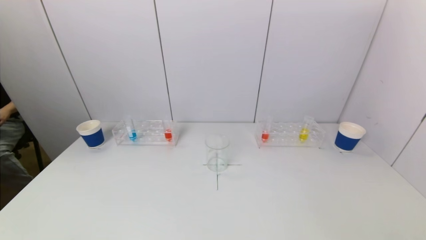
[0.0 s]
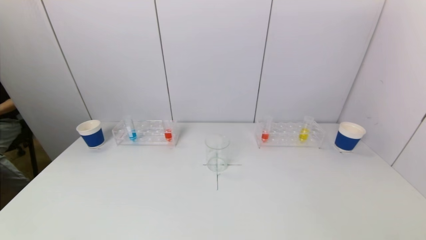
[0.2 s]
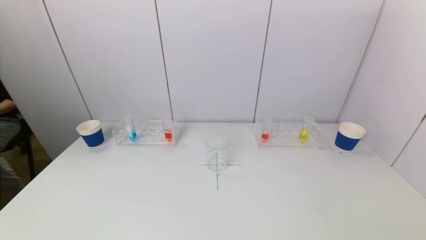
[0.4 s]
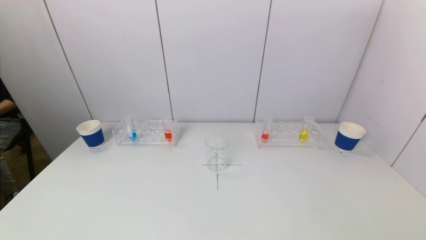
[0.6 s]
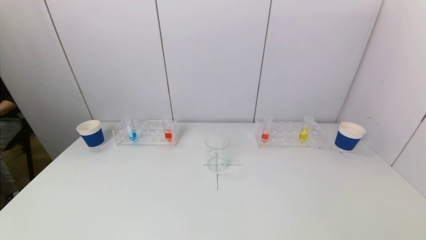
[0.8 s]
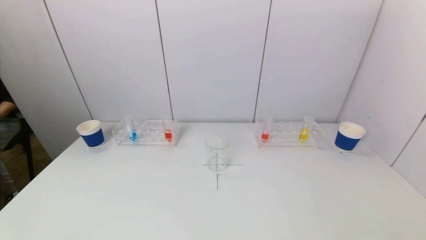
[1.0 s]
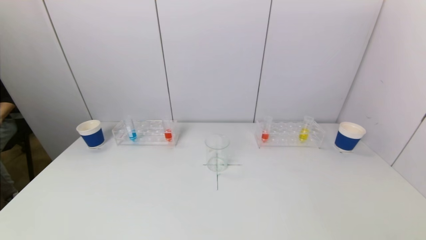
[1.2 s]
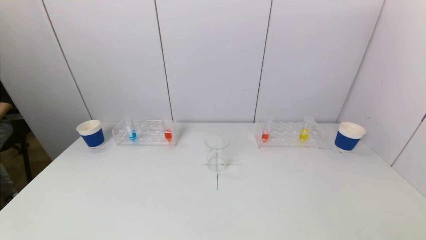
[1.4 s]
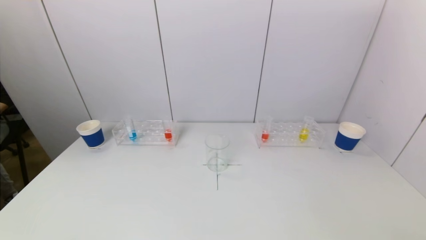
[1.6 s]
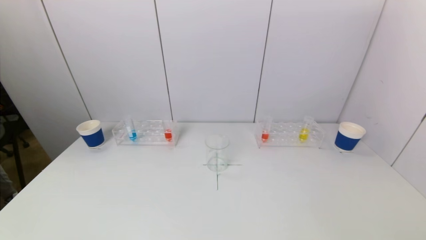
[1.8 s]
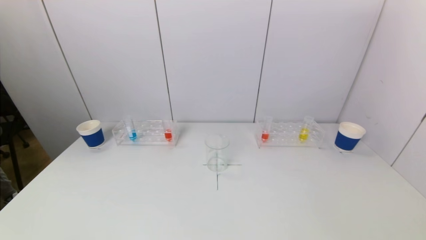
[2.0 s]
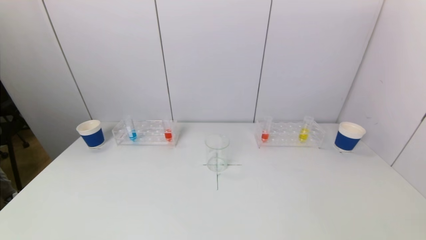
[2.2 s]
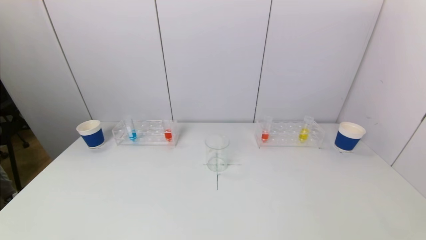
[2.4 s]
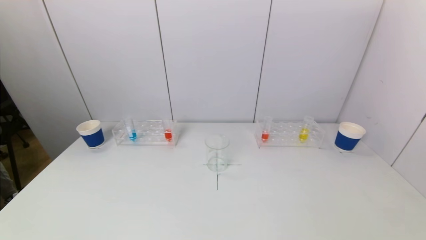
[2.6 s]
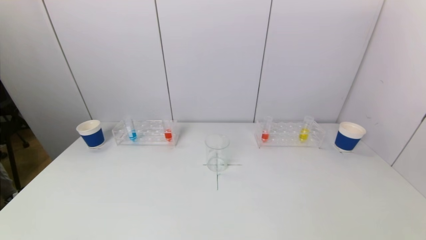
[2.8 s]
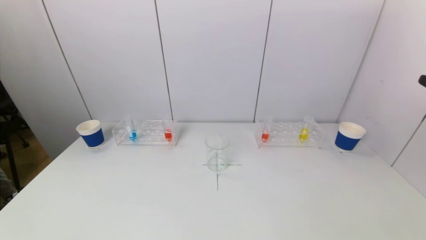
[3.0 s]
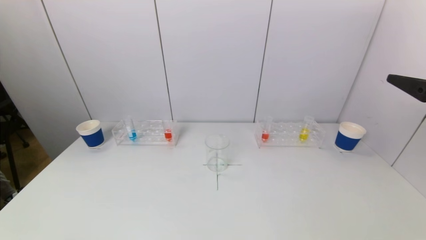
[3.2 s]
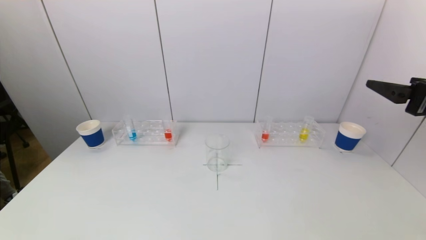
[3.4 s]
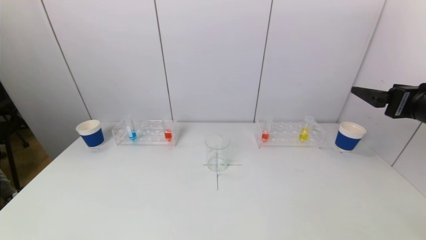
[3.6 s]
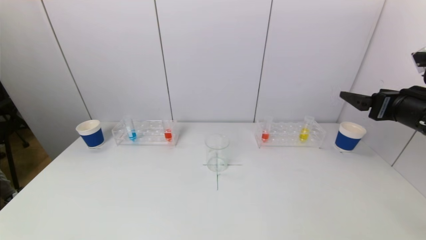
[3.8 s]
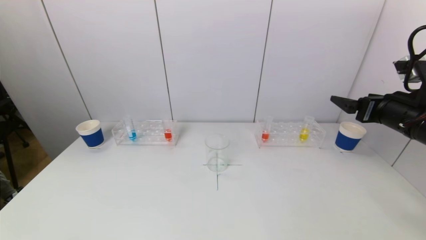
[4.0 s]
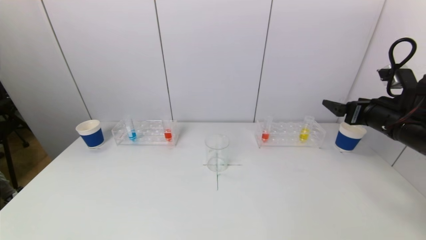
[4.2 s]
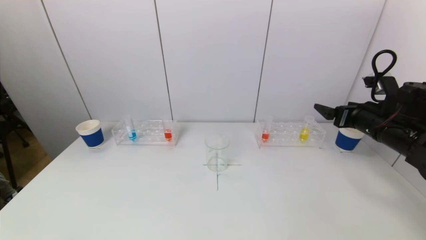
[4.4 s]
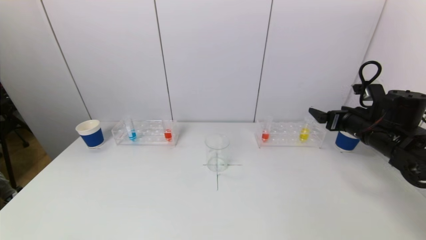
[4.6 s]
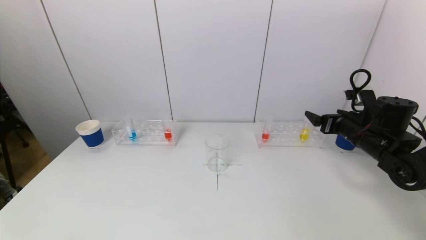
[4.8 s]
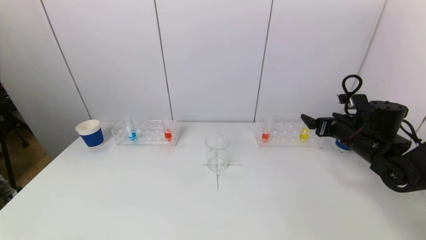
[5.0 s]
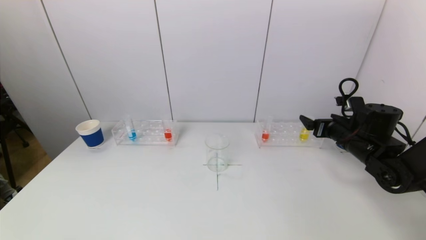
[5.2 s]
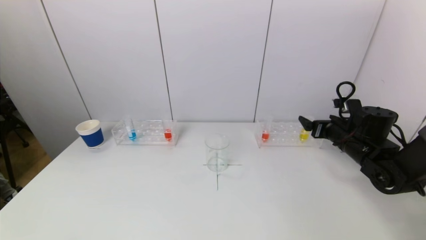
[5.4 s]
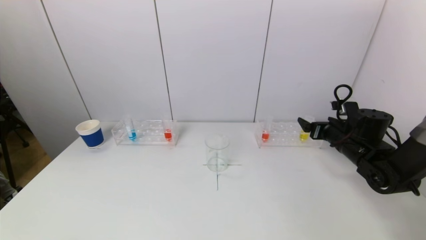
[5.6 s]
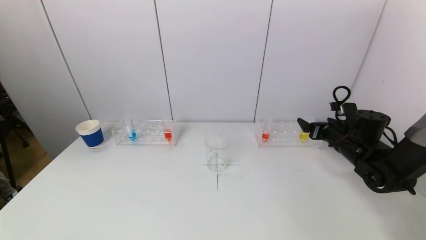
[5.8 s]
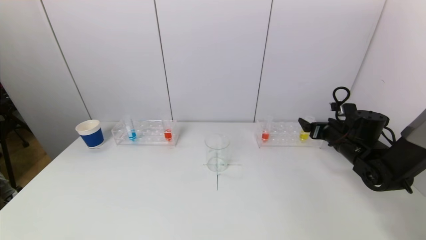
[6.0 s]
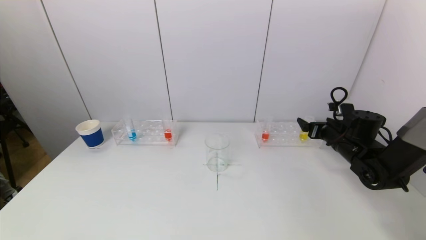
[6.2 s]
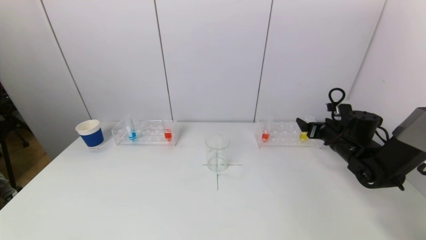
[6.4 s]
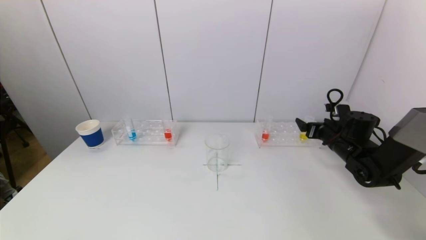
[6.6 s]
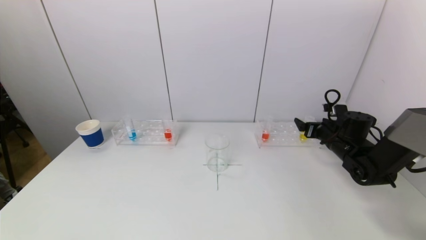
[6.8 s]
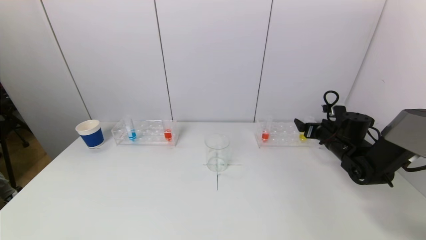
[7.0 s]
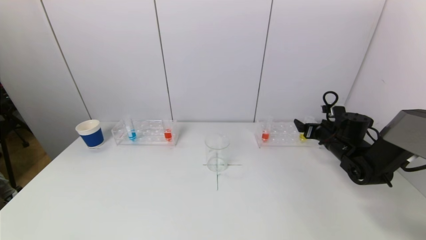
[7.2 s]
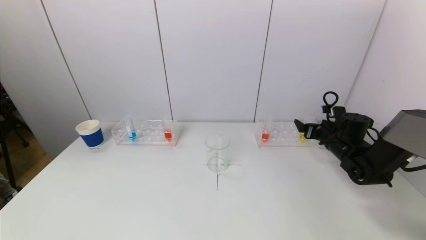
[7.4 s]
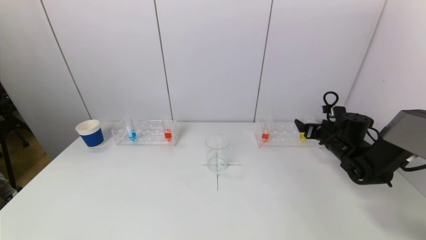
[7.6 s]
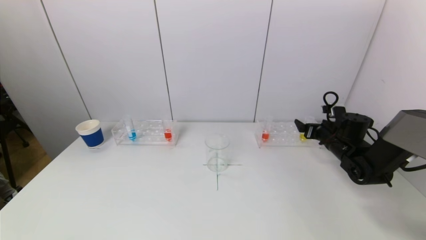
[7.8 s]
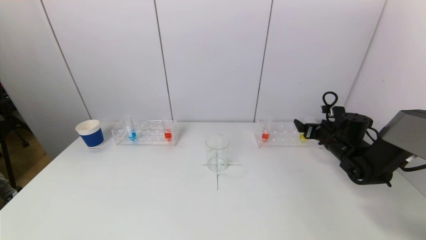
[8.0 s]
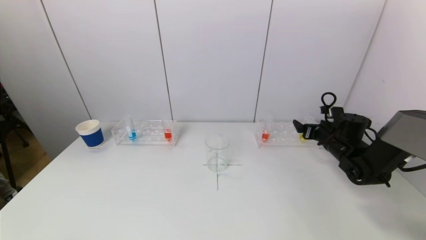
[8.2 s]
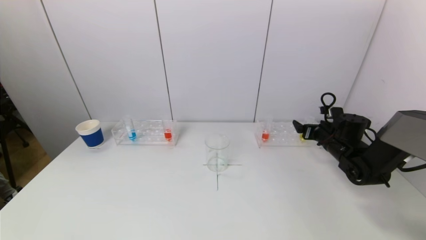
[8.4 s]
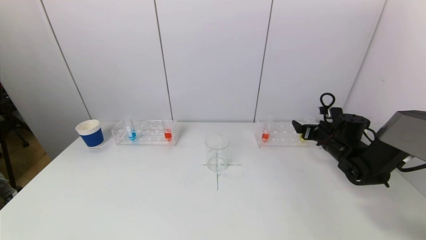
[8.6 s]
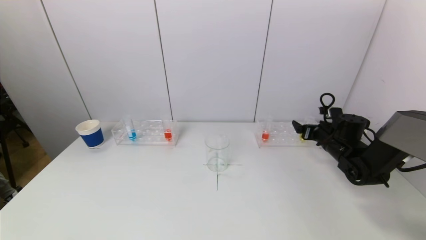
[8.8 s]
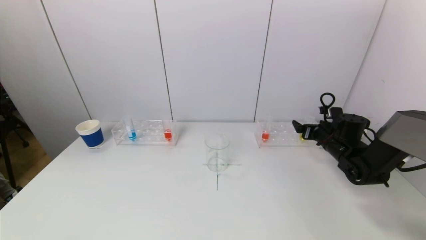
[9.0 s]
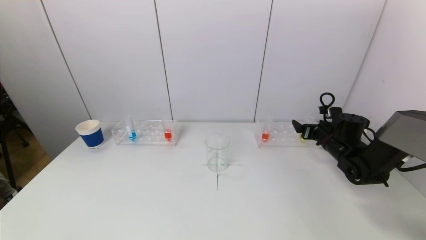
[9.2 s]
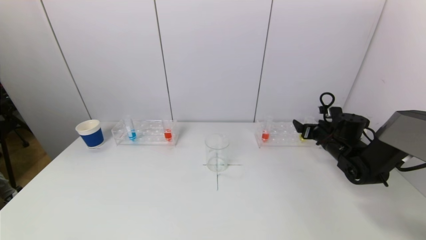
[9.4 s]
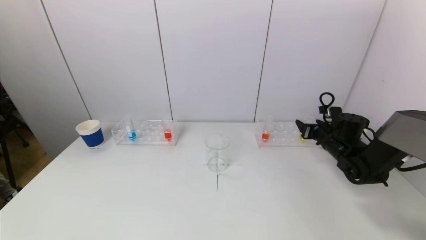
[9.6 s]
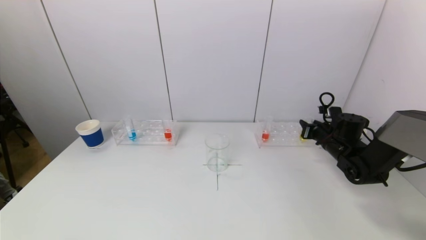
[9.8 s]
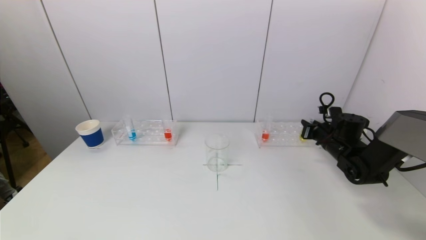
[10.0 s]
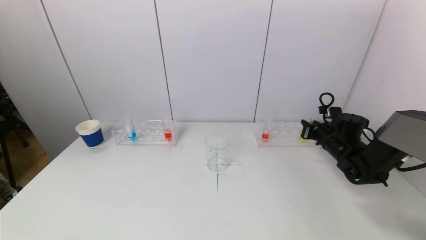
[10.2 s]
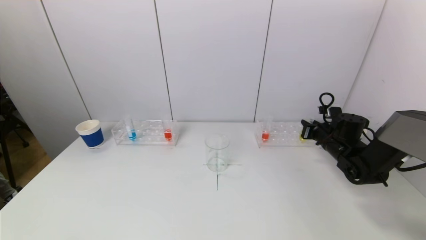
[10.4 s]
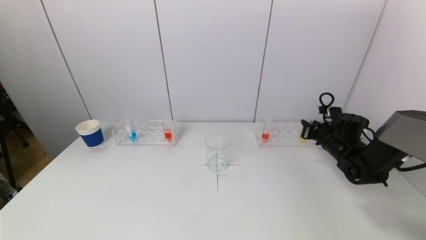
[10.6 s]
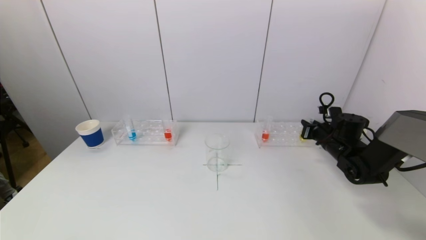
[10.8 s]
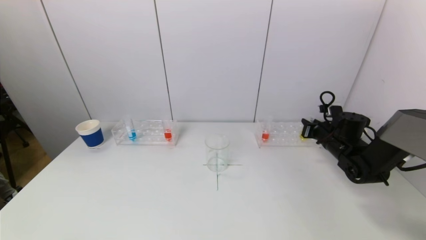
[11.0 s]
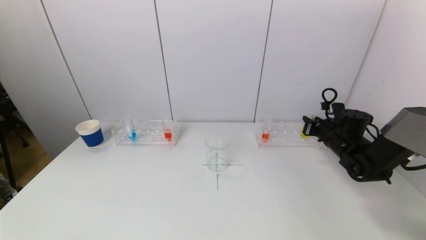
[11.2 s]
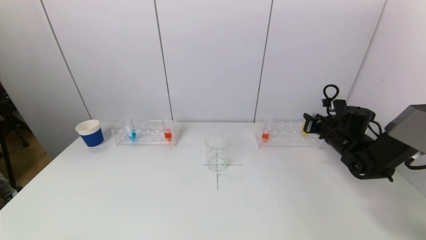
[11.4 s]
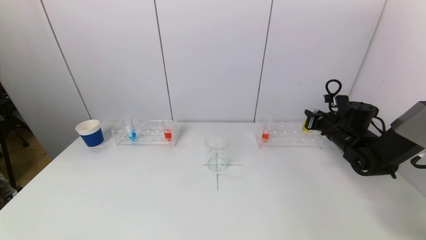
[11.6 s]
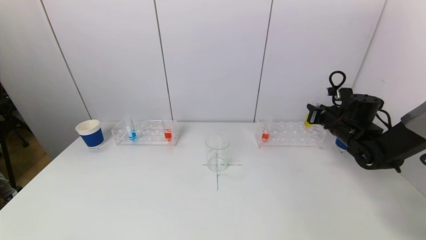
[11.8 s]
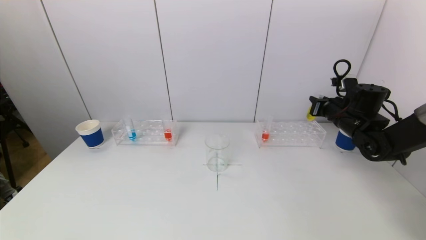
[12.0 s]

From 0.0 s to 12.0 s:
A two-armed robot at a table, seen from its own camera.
Task of the whole recording: pick up a test tube with pigment on left test tube rack and a test tube with pigment on right test tube rack by grippers and pour them into the beaker.
Step, from 0.0 s to 10.4 s: Grasp the yellow reagent with the right gripper.
From 0.0 s to 1.6 s: The grippers move only a little.
From 3.0 s to 4.4 s: The right gripper is displaced forward and downward by some 20 cm.
From 4.4 s to 6.0 s: The right gripper shifts roughly 10 cm downward and forward.
From 6.0 s to 7.6 s: There are only small adjustments of the grippers.
From 7.6 s to 9.0 s: The two grippers keep their place.
From 10.4 s to 12.0 s: The right gripper moves upward, roughly 10 cm.

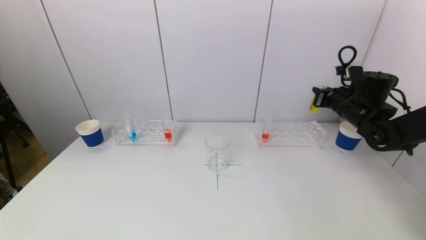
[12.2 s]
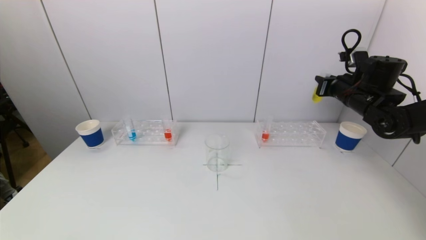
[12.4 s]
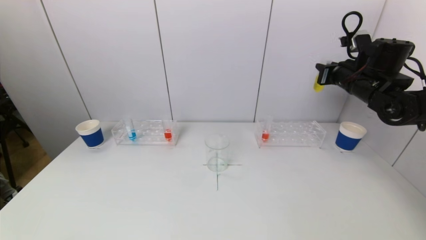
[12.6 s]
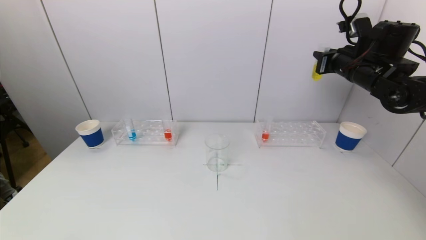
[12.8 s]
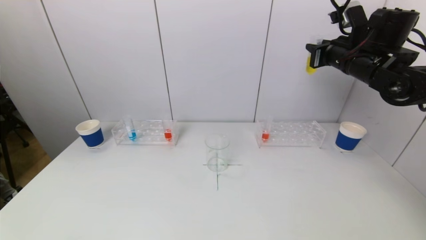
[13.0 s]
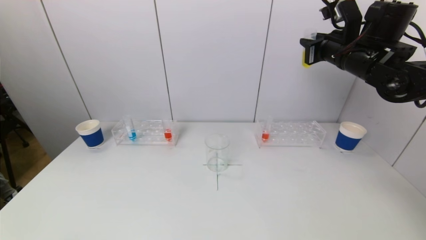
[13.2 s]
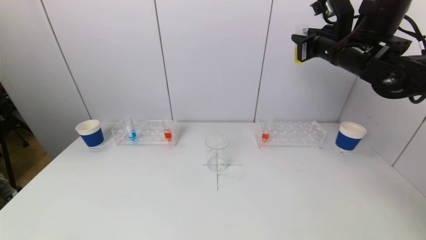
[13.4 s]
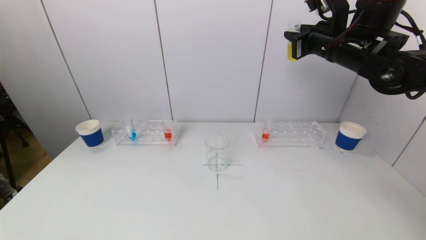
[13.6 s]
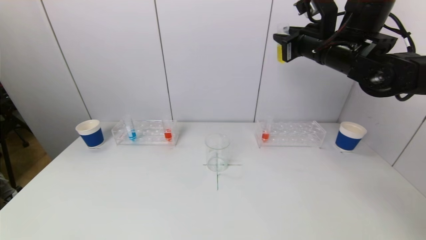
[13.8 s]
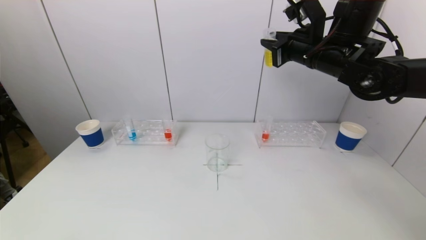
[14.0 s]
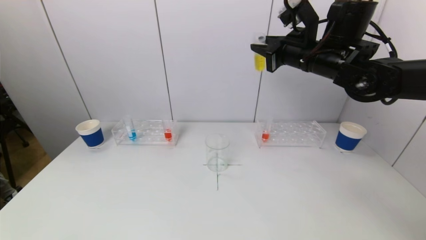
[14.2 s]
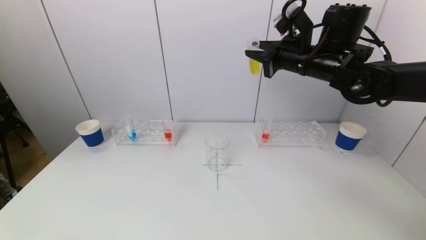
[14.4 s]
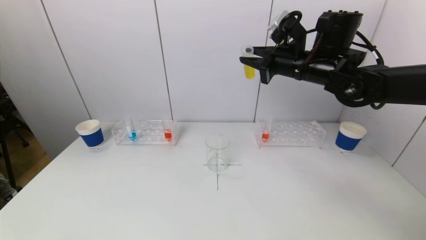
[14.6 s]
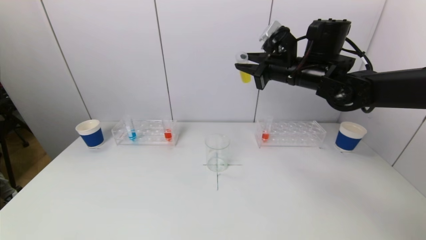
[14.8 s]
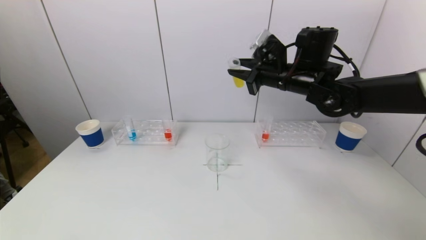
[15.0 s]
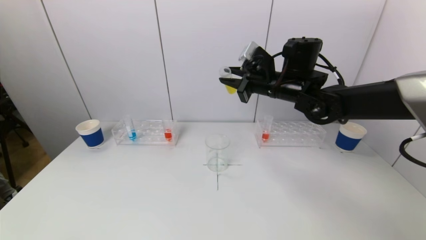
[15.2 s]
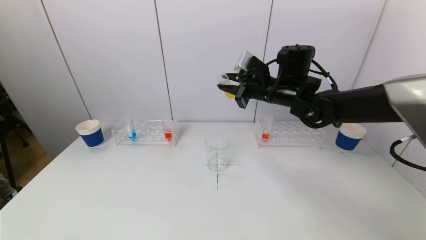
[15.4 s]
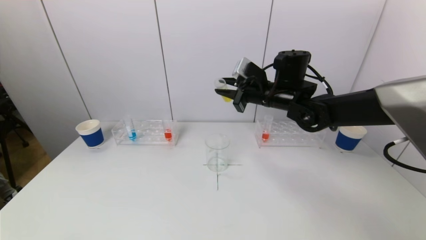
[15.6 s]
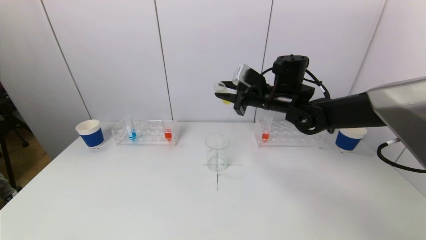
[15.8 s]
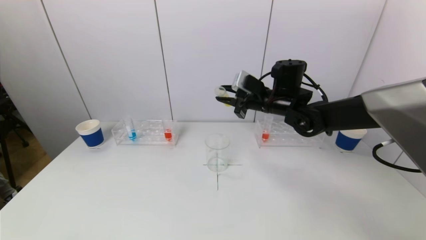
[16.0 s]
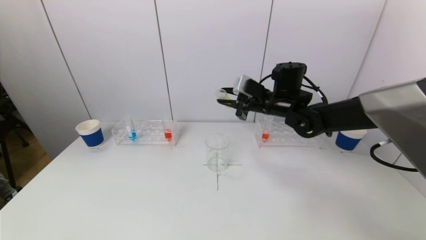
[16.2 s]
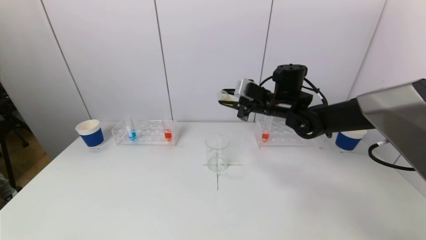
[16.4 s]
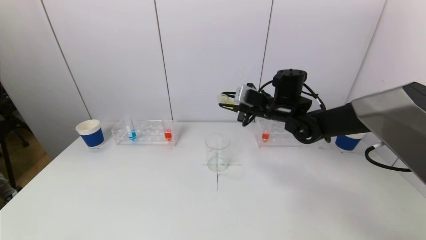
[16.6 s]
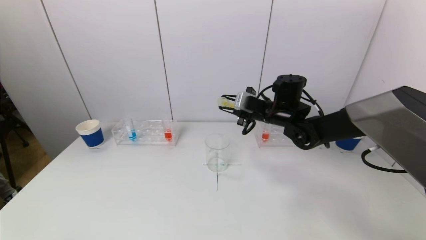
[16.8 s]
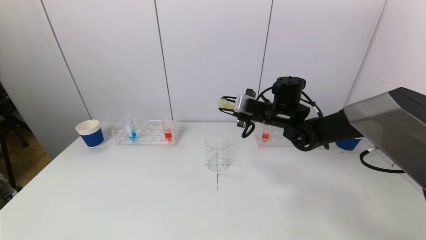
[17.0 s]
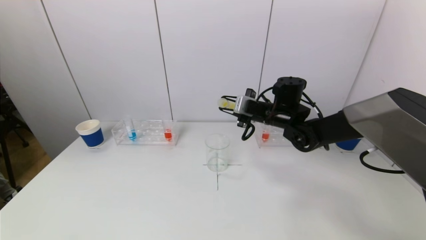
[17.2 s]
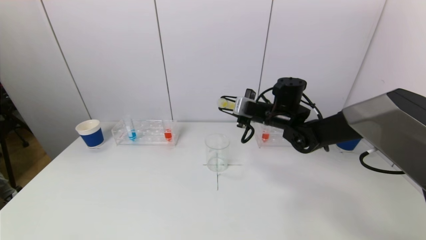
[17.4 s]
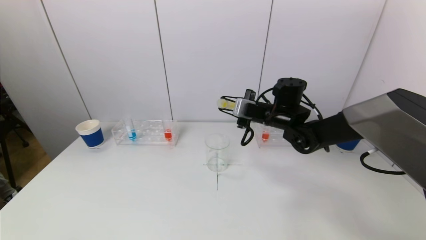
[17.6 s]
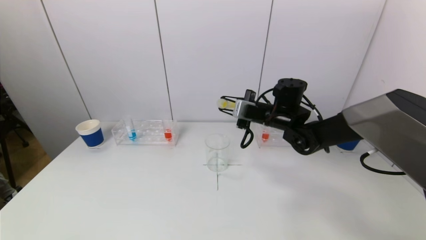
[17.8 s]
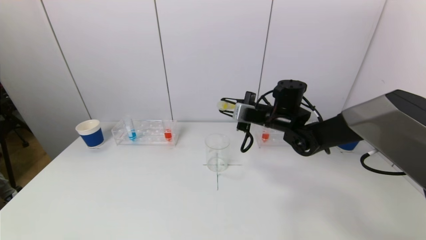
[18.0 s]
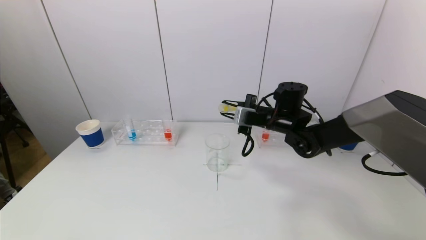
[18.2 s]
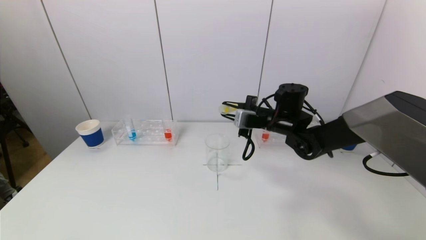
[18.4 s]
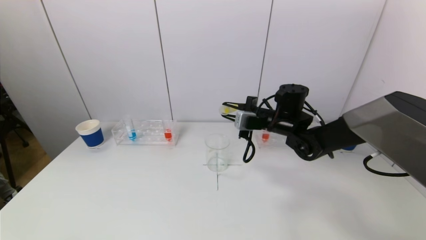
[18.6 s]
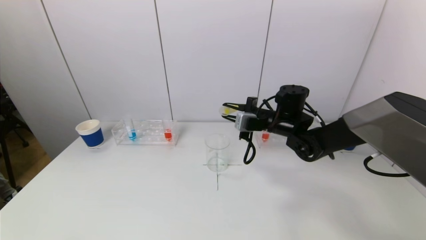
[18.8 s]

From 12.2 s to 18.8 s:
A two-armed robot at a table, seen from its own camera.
Task of the whole recording: pick up a test tube with pigment on left test tube rack and a test tube with pigment on right test tube rack by grippers and pour them into the beaker.
From 12.2 s to 13.8 s: The right gripper is displaced upward and to the left by roughly 20 cm.
From 13.8 s to 15.4 s: The right gripper travels downward and to the left by about 10 cm.
From 15.4 s to 17.2 s: The right gripper heads downward, covering approximately 5 cm.
From 17.2 s to 18.8 s: The grippers move only a little.
